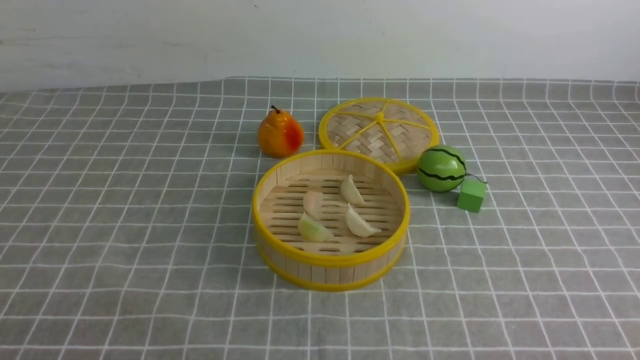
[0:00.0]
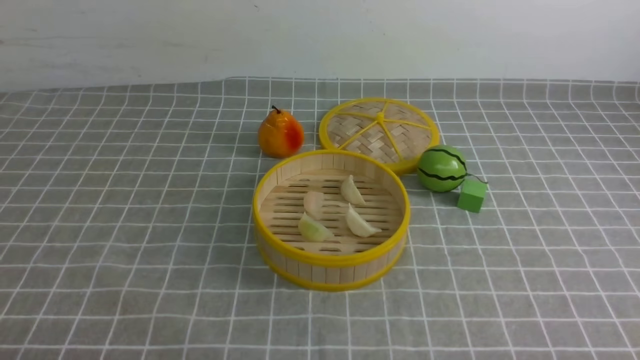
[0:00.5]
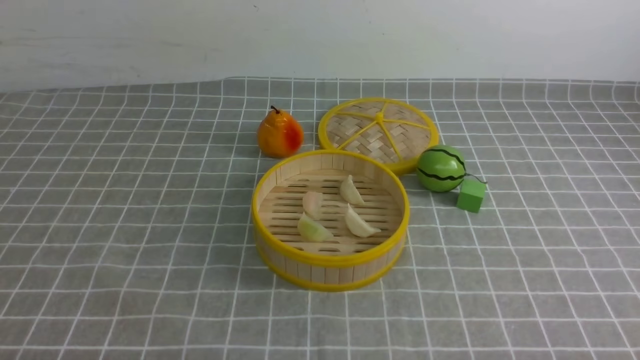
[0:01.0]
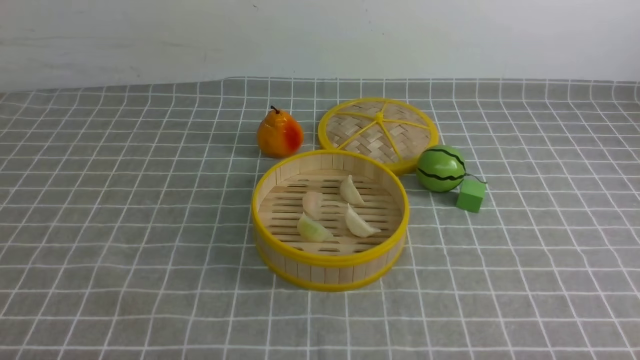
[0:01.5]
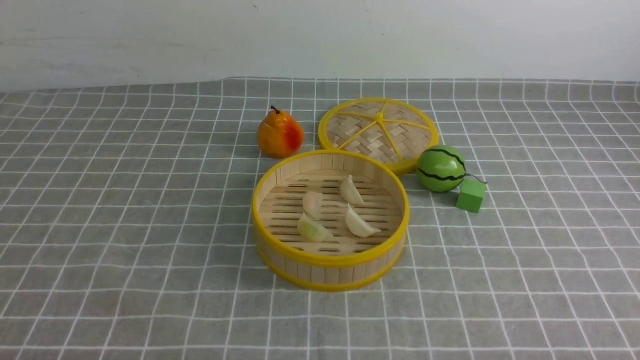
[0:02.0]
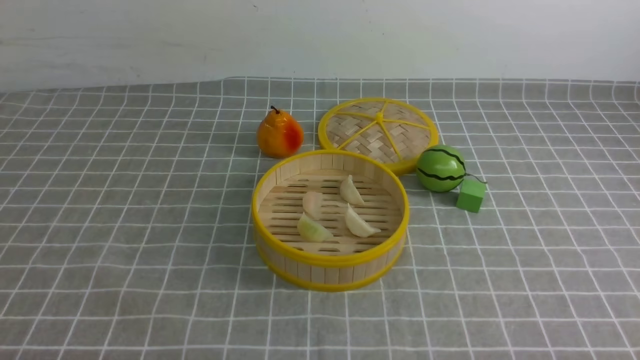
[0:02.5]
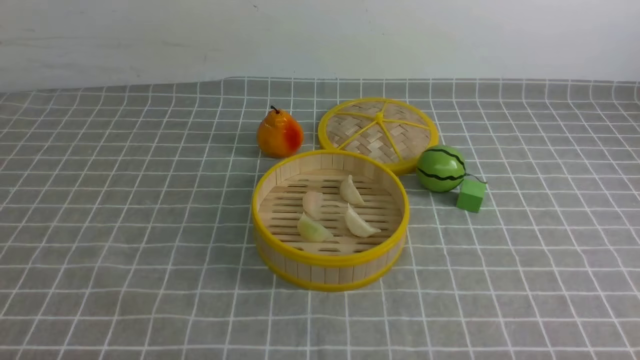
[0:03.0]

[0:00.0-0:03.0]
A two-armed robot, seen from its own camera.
Task of the whole recording: put the dumplings into the steamer on the table with the grey tablecloth.
0:01.5 to 0:03.0: Neither gripper changes place.

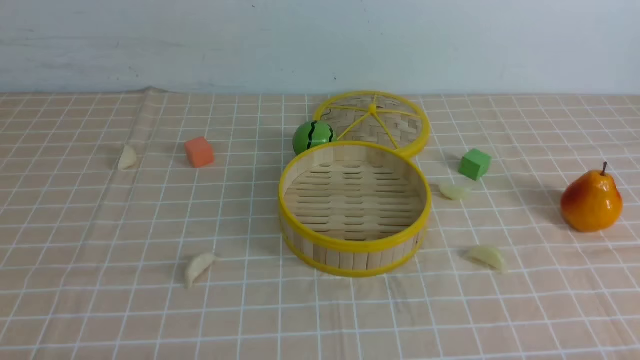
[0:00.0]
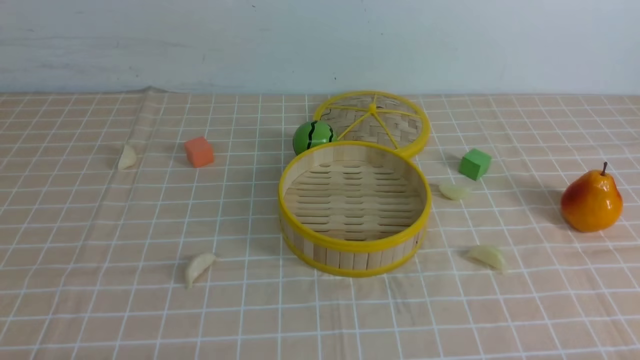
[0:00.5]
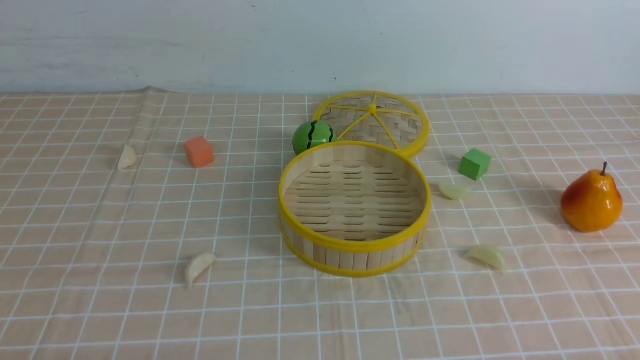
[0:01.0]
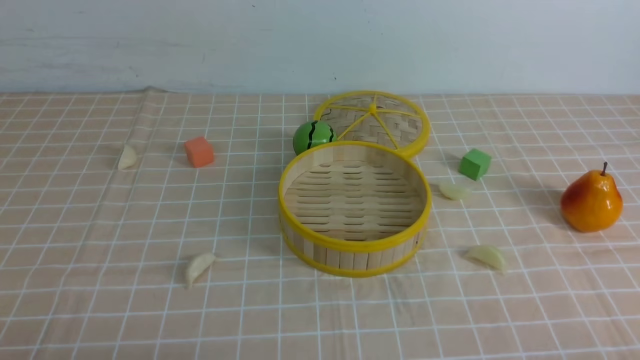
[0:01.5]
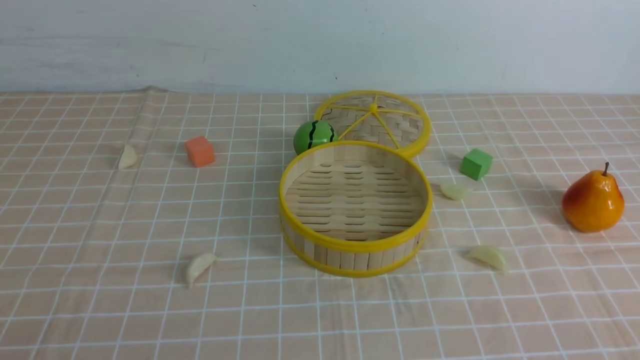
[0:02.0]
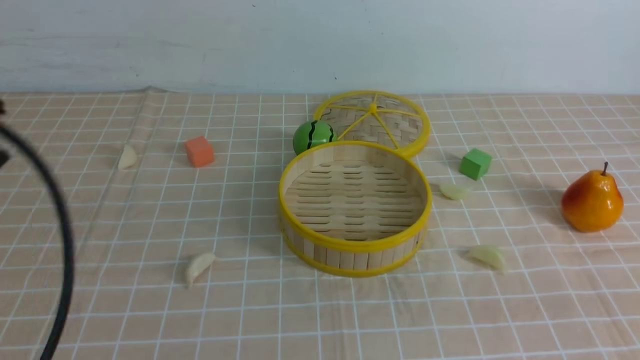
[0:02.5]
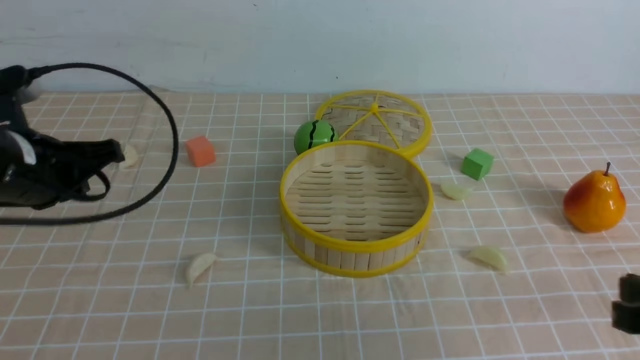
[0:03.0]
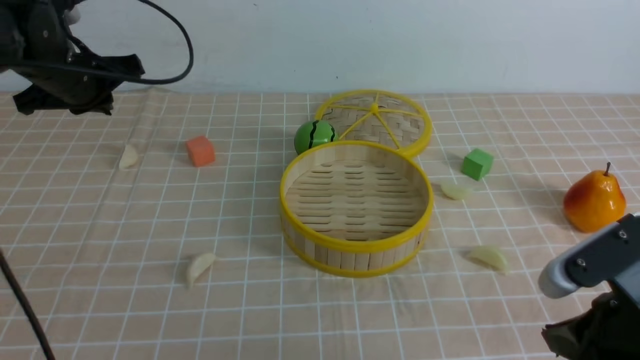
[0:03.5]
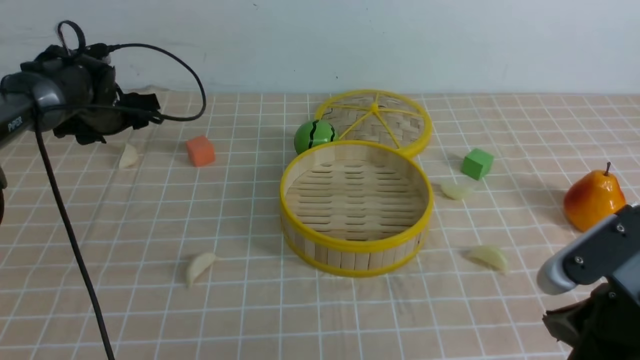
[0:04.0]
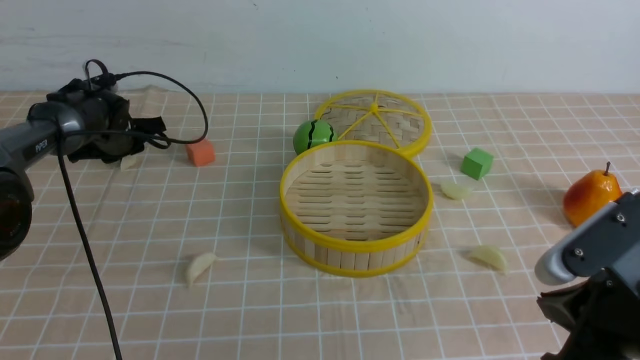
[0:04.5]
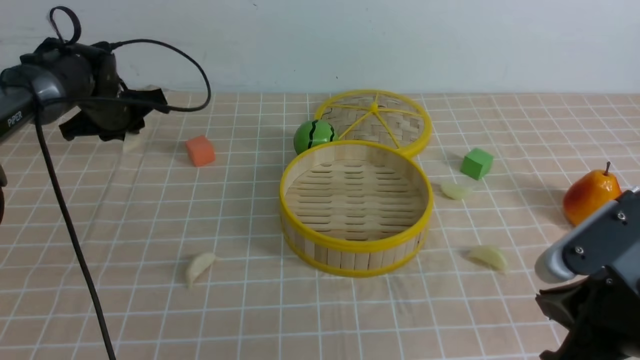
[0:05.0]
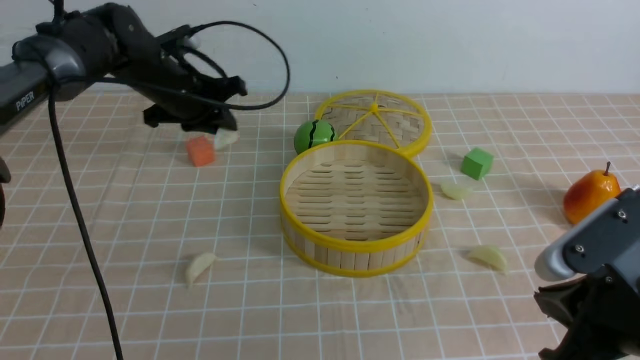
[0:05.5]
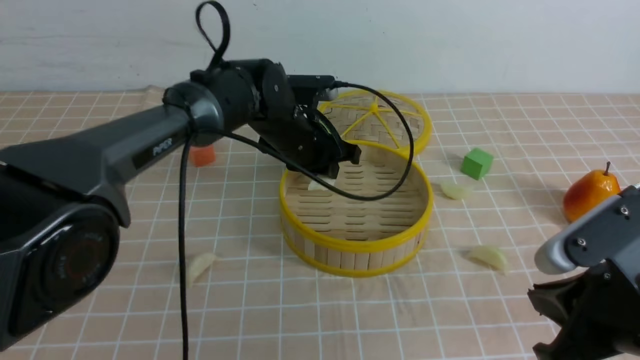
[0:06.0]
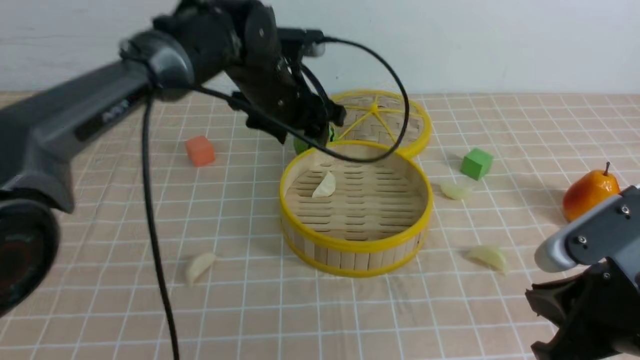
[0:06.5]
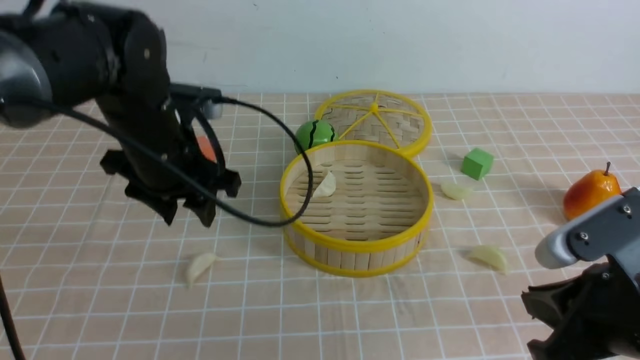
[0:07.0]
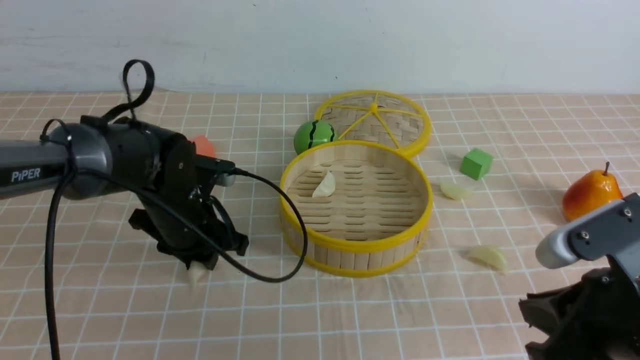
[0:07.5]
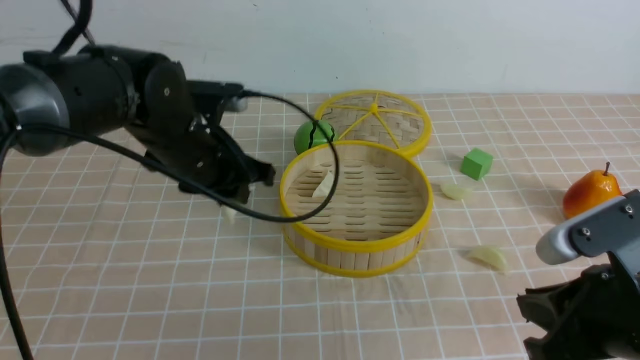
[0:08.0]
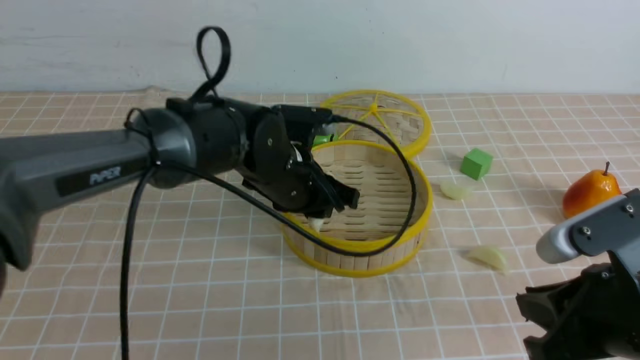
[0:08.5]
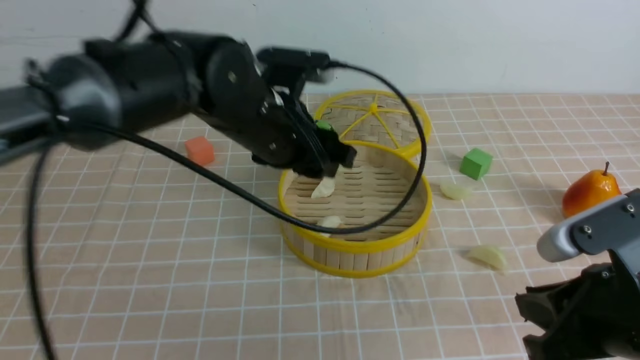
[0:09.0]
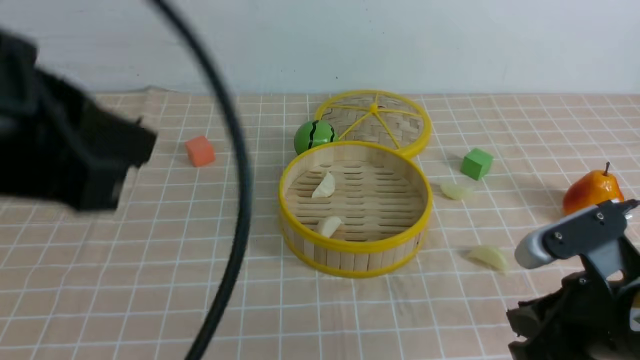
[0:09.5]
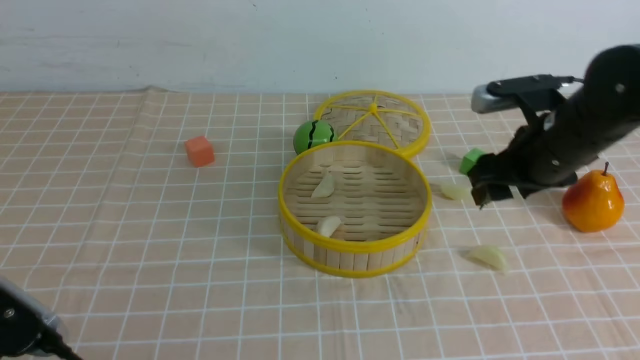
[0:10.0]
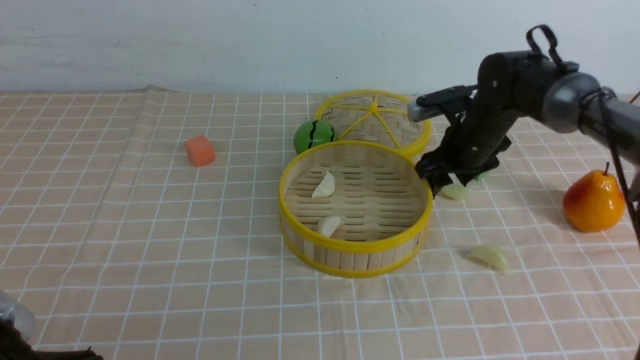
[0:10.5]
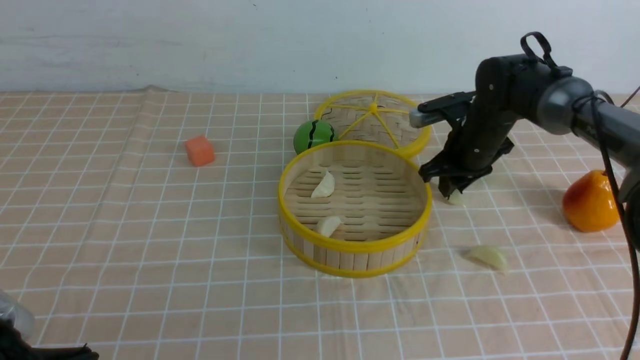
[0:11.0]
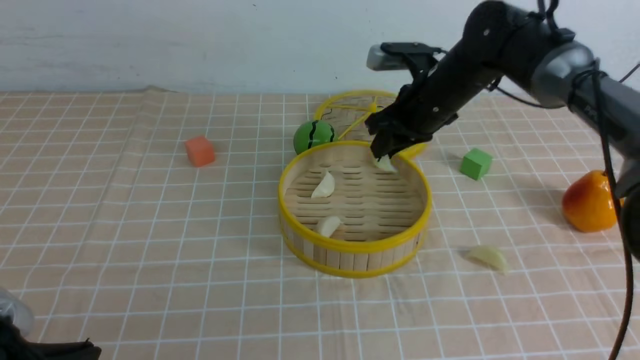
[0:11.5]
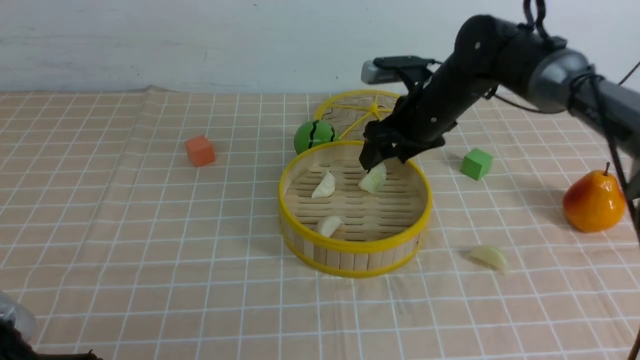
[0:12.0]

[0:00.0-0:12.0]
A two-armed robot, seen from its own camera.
Task of the whole recording: put the dumplings into the steamer on the table with the brown tablecloth.
Step, 0:00.0 to 0:04.5: use the left arm to grab a dumpling.
Step, 0:05.0 to 0:06.0: use the left arm to put the dumpling into the steamer.
Step, 0:06.5 to 0:07.5: use the left arm to grab a dumpling.
Step, 0:08.0 to 0:09.0: use the left arm to put the dumpling into the steamer.
Step, 0:09.5 to 0:10.5: use the right arm to grab a dumpling.
Step, 0:11.0 to 0:12.0: use the right arm to put the dumpling into the steamer.
0:02.0 to 0:04.0: The right gripper travels forward and to the left by some 15 cm; the left gripper moves forward, roughly 50 cm, and opens up.
0:04.0 to 0:06.0: The left gripper heads to the right, covering approximately 25 cm, and closes up.
0:06.0 to 0:08.0: The left gripper swings up and down, about 15 cm each way, with 2 reversals, and opens, then closes again.
0:08.0 to 0:10.0: The left gripper heads backward, covering roughly 25 cm, and closes; the right gripper shifts some 20 cm forward, and opens up.
0:10.0 to 0:12.0: The right gripper shifts roughly 10 cm forward and to the left, and closes and opens again.

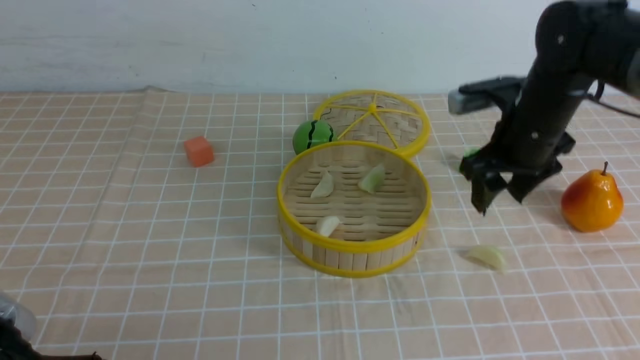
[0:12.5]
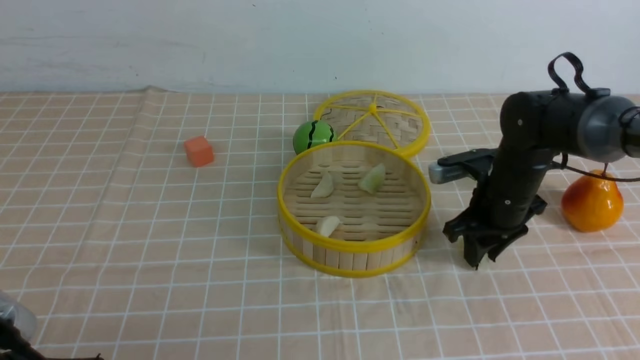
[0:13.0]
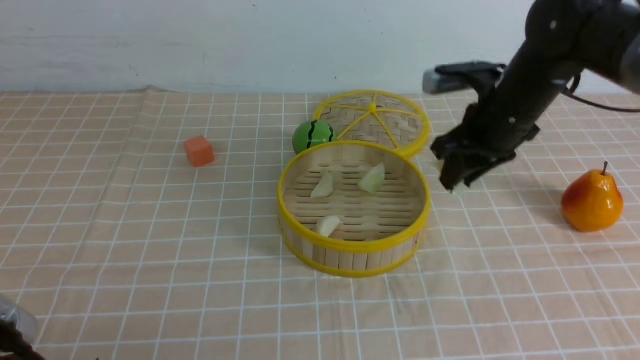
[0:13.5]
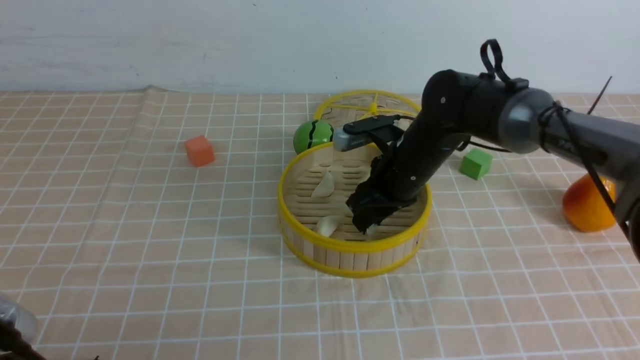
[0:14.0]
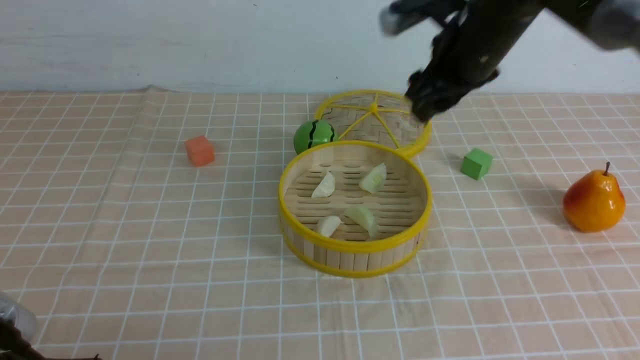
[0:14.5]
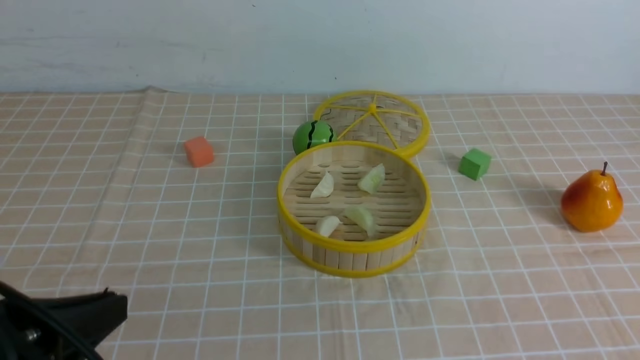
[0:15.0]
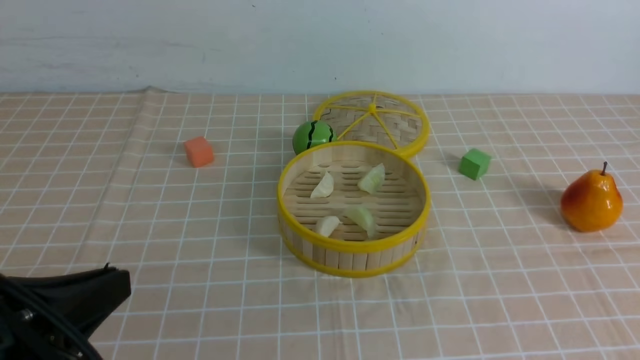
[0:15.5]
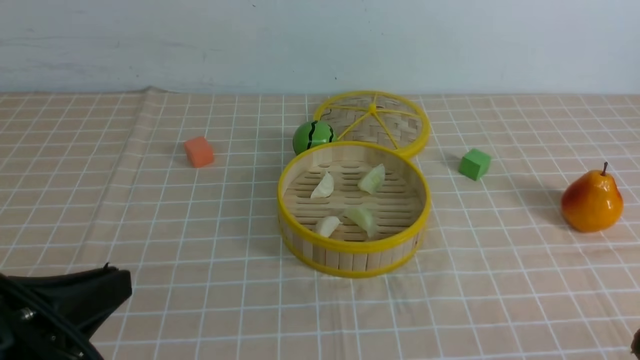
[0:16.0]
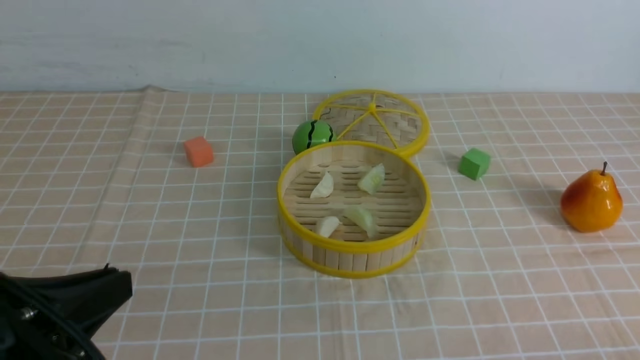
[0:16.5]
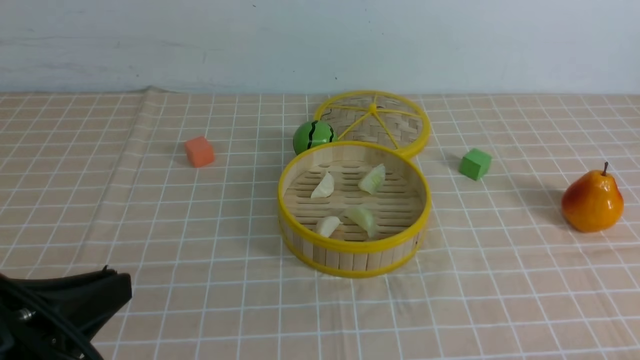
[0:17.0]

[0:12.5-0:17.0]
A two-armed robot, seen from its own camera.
Task of the whole recording: put the dumplings into the steamer on the table with the brown tablecloth.
Step, 0:12.5 to 0:13.0: use the right arm to grab a dumpling.
Step, 0:13.5 to 0:14.0: use the right arm to put the dumpling into the steamer.
0:12.5 to 0:14.5: The right gripper swings up and down, approximately 20 cm each way, with 3 reversals.
0:14.5 to 0:17.0: The right gripper travels backward and downward by some 40 cm, and closes its fingers.
